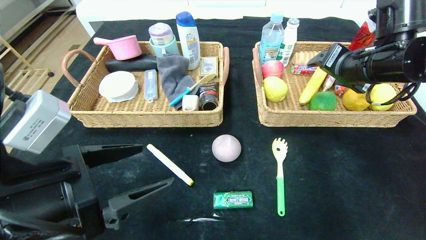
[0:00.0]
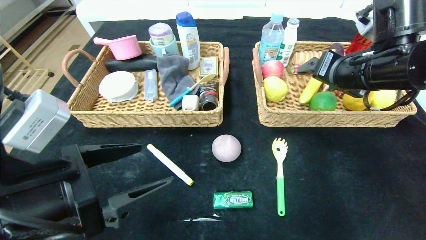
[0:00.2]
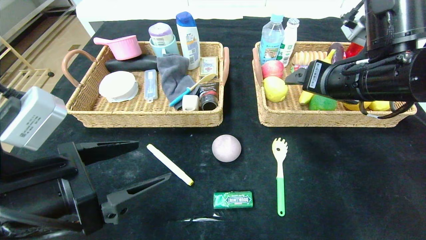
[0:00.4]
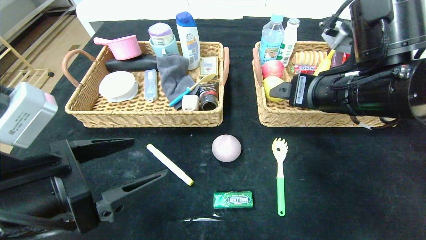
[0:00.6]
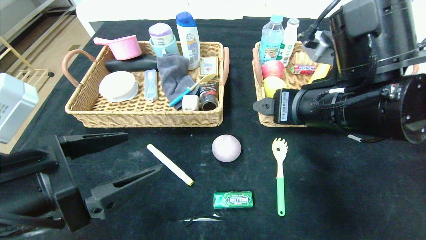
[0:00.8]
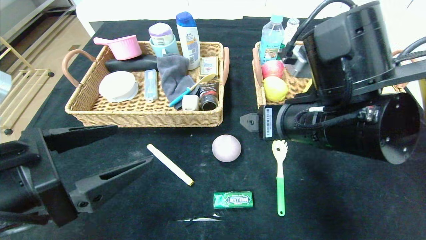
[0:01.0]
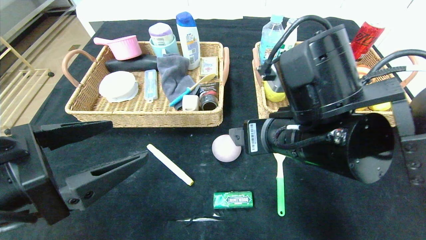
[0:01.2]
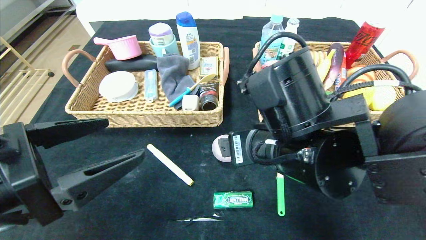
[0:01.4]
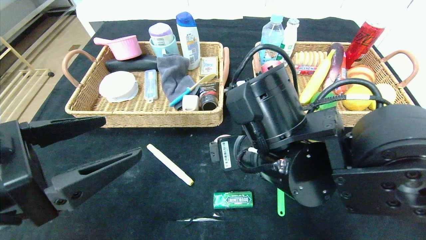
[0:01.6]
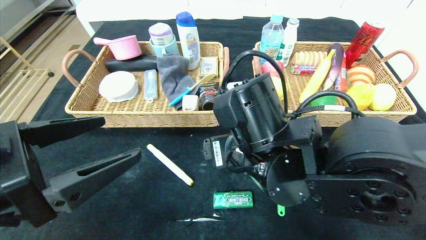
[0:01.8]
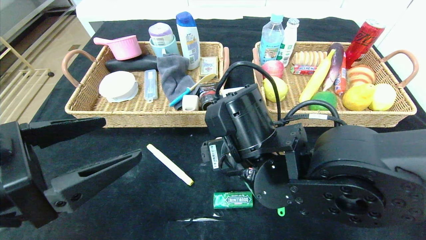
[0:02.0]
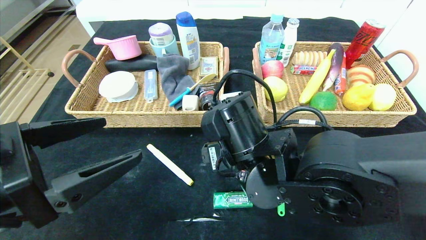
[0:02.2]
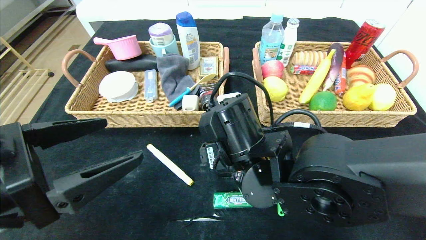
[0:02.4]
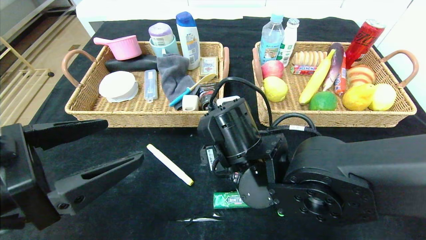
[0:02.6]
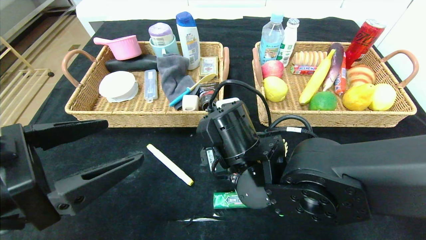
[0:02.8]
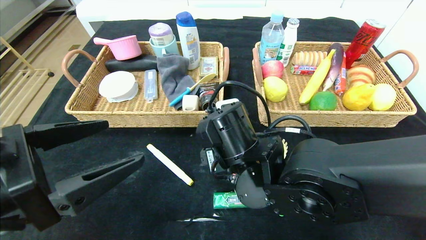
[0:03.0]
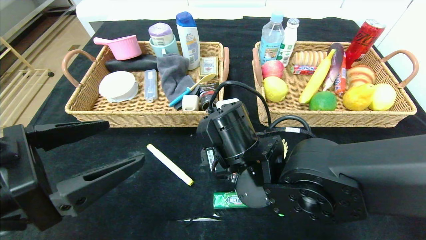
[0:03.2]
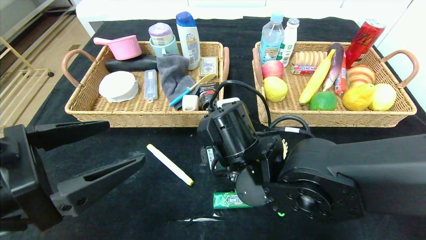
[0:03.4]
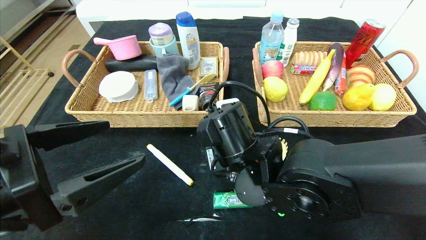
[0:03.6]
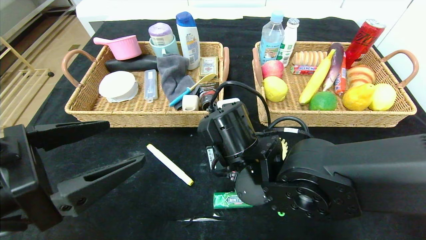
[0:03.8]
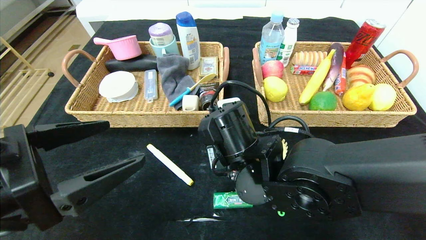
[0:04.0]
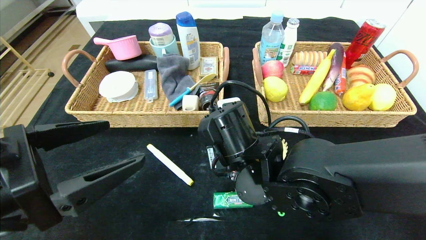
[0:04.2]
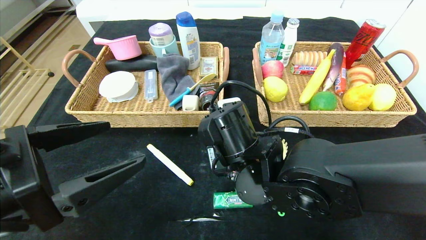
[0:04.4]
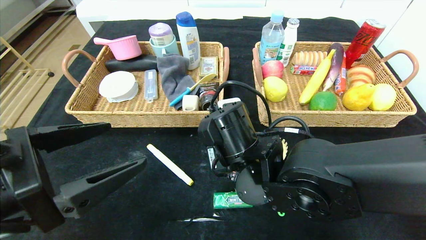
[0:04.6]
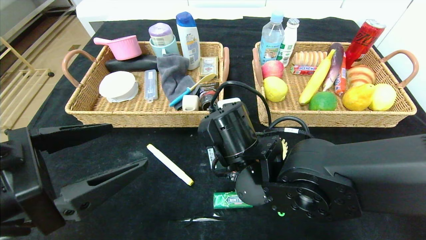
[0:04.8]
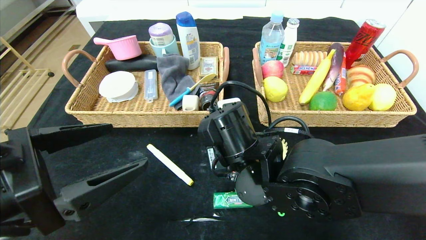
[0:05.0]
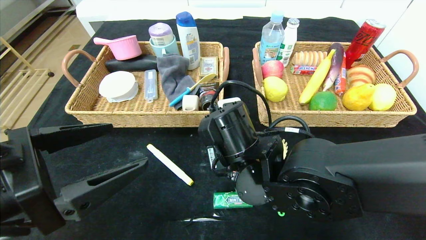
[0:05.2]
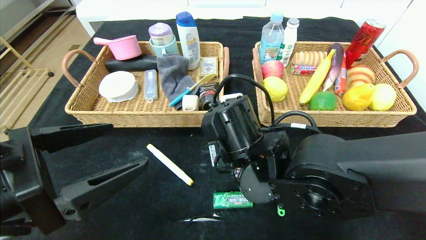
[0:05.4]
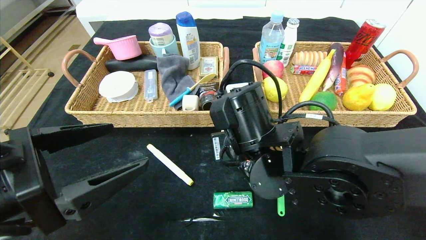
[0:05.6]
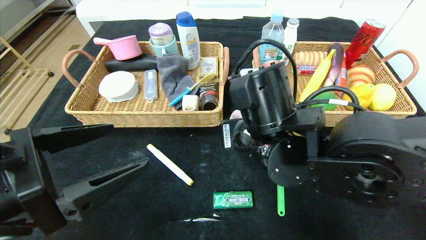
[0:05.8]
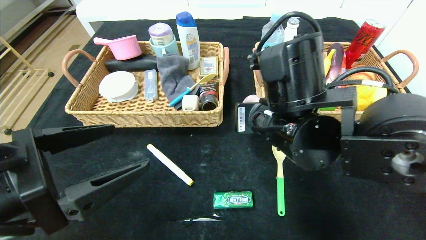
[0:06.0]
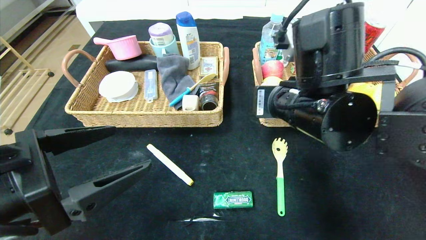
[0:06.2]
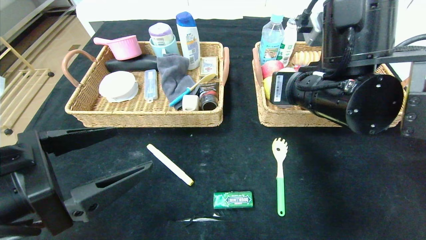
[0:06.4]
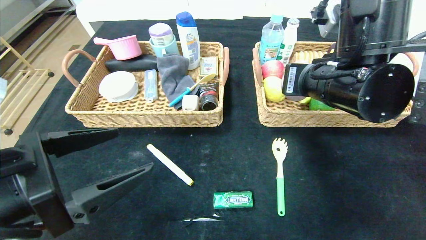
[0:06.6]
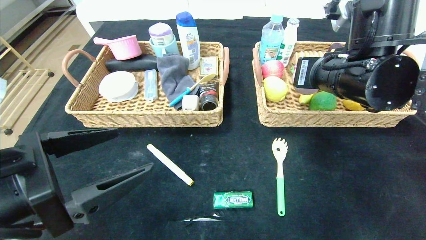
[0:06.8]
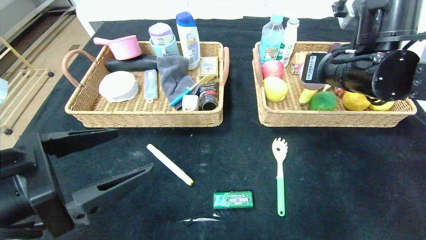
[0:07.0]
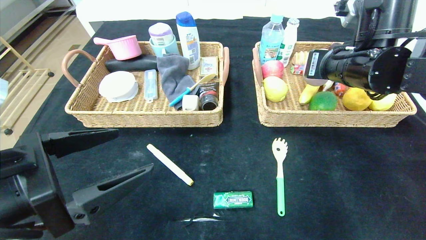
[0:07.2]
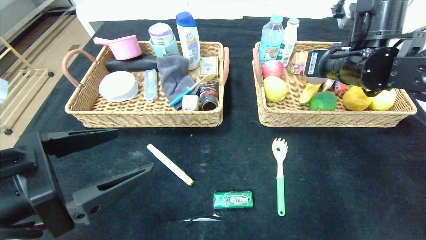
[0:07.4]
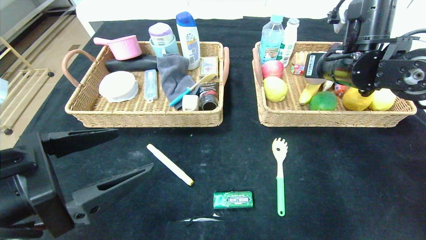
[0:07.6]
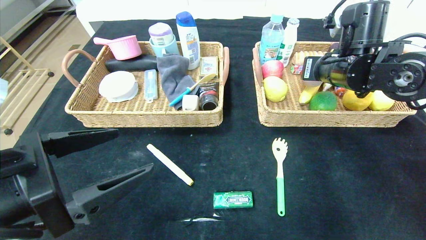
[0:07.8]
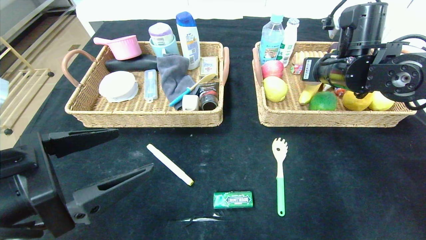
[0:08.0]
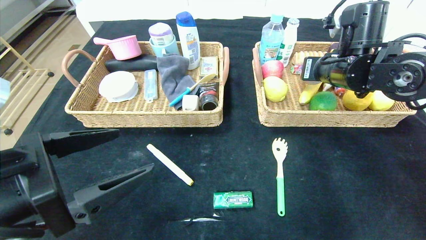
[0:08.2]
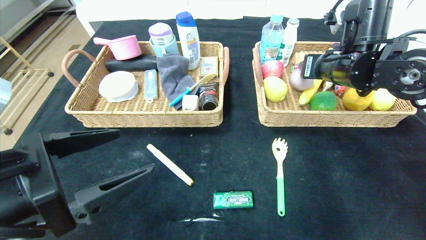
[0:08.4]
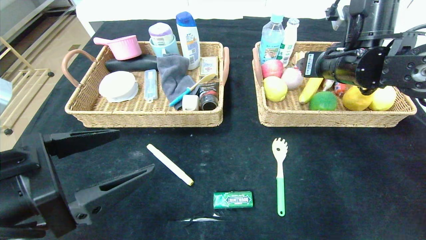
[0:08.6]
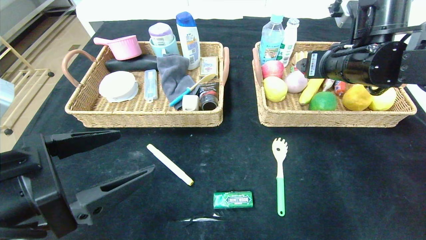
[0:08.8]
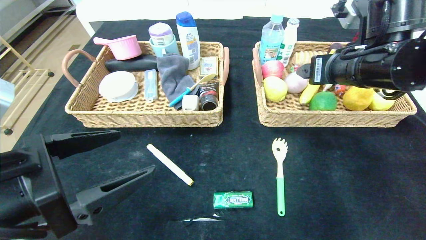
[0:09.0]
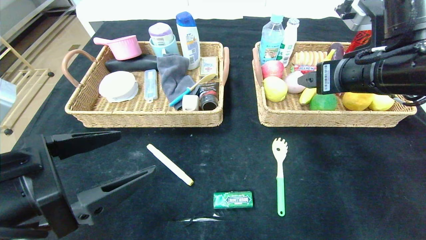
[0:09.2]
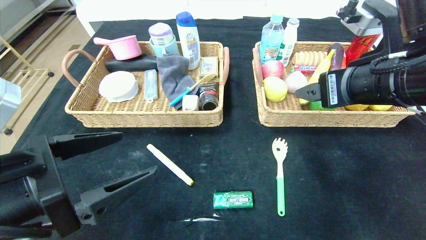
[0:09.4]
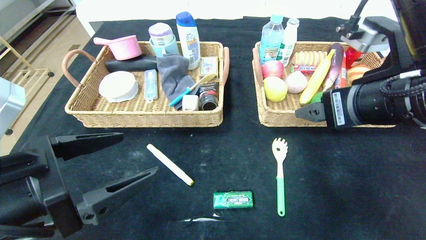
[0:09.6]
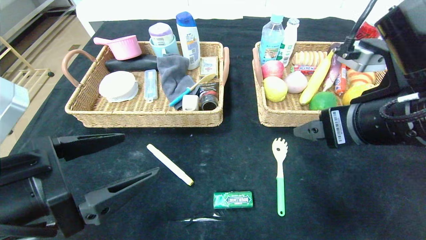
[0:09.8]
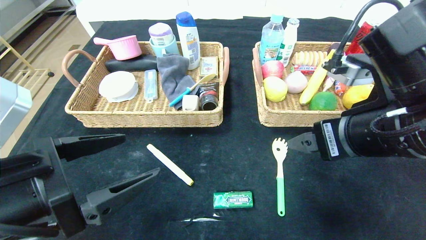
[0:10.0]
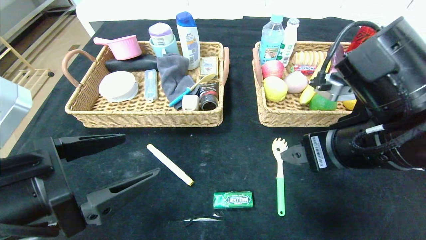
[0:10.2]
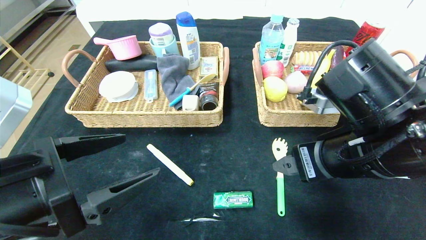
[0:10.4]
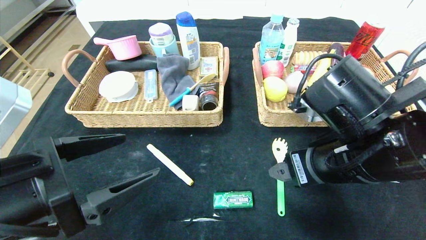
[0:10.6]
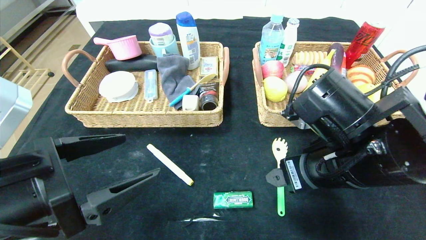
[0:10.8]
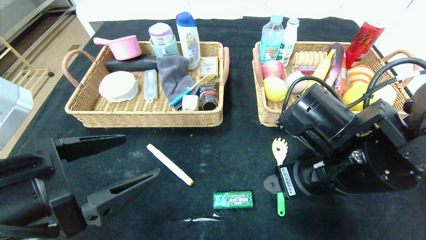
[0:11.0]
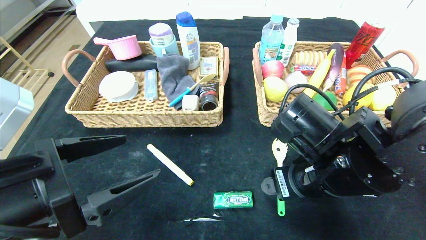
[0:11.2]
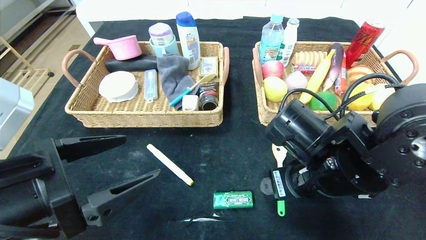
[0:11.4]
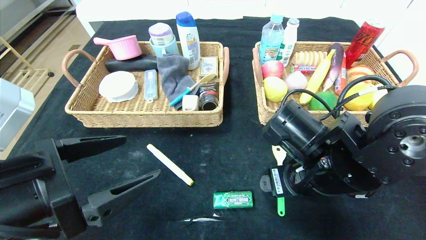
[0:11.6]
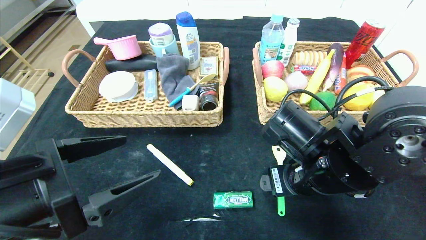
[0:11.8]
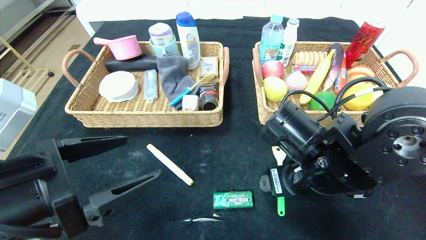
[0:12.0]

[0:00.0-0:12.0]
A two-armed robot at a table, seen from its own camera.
Step, 0:01.4 to 0:10.2: Pick up the peach and put it in the right basket.
0:00.0 to 0:01.6: The right gripper shifts about 25 cm to the left, backward and downward.
0:01.6 to 0:03.0: The right gripper changes place by approximately 5 cm.
0:03.0 to 0:04.4: The right gripper closes.
0:04.4 to 0:06.0: The right gripper heads upward and to the right, covering roughly 10 cm.
0:06.0 to 0:07.6: The right gripper heads to the right and forward, covering approximately 20 cm.
0:07.6 to 0:09.0: The right gripper heads backward, covering approximately 5 cm, and opens its fingers.
0:09.0 to 0:10.4: The right gripper moves backward and downward, some 10 cm.
0:10.4 to 0:12.0: The right gripper goes about 5 cm downward.

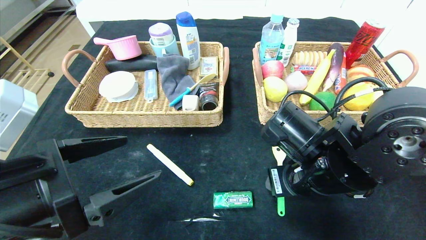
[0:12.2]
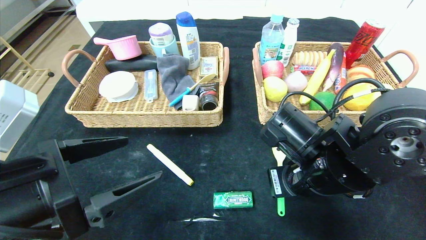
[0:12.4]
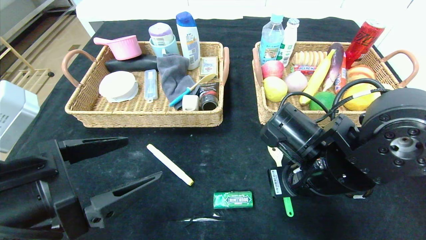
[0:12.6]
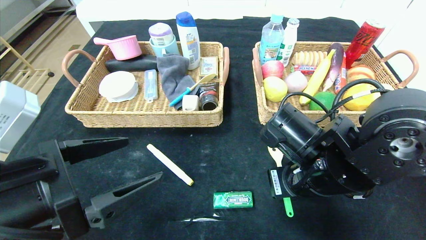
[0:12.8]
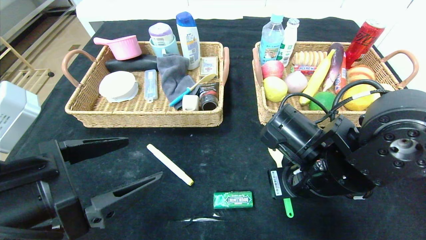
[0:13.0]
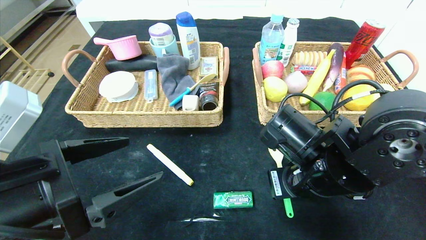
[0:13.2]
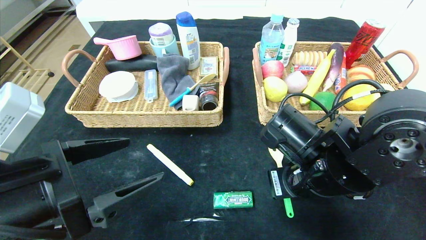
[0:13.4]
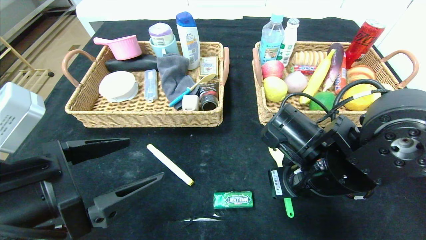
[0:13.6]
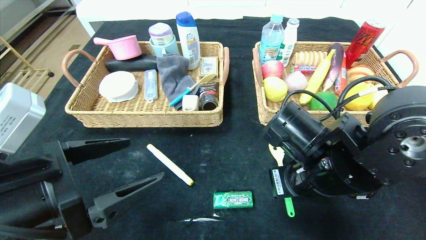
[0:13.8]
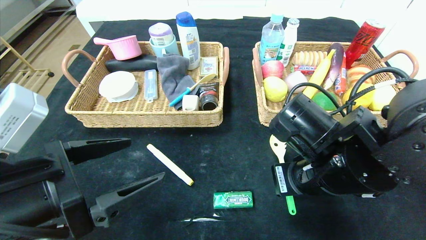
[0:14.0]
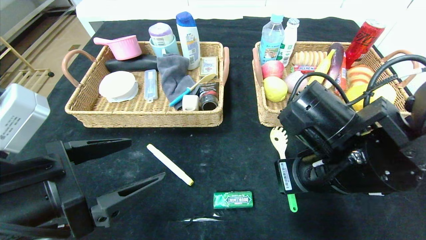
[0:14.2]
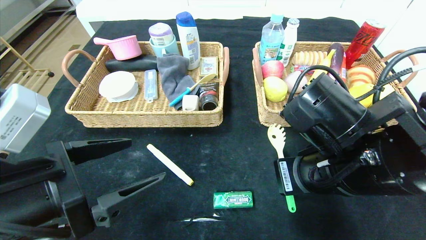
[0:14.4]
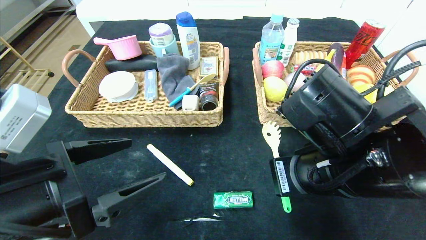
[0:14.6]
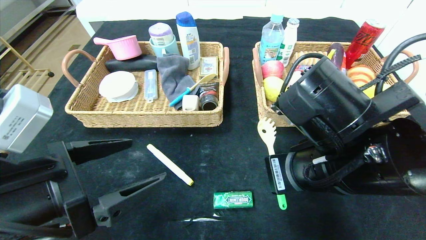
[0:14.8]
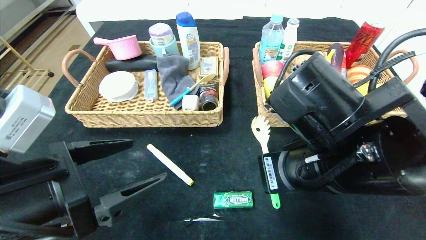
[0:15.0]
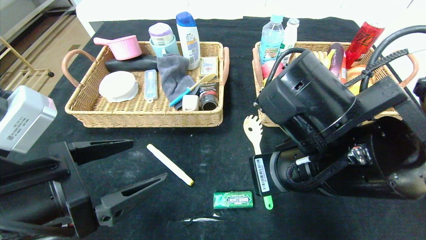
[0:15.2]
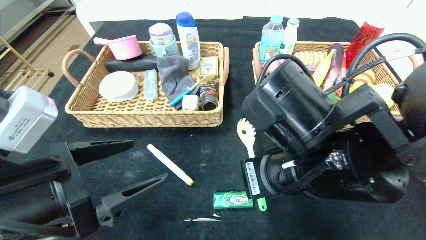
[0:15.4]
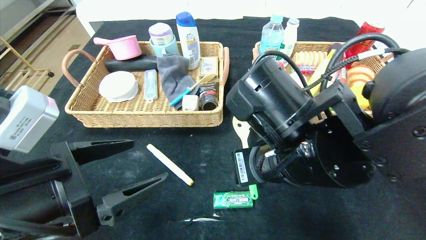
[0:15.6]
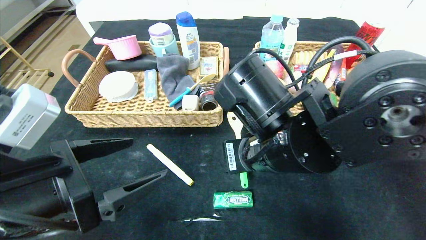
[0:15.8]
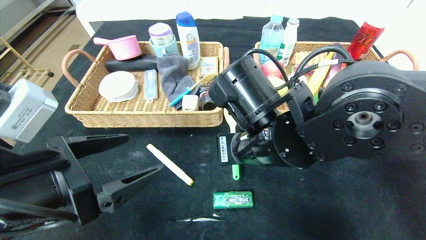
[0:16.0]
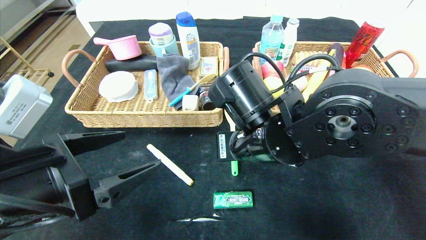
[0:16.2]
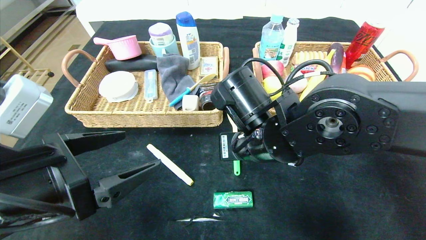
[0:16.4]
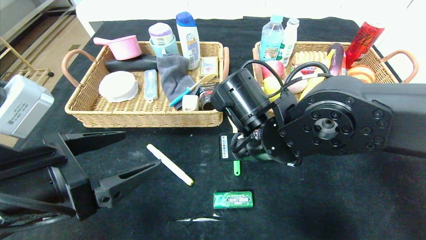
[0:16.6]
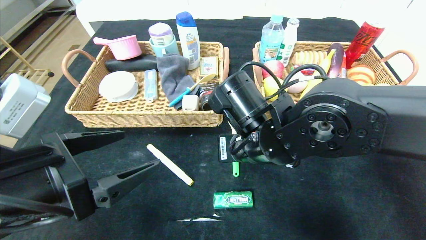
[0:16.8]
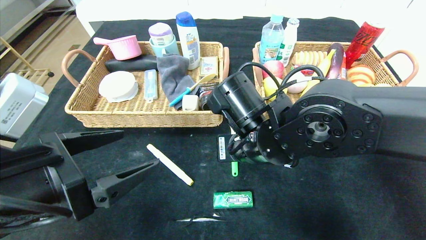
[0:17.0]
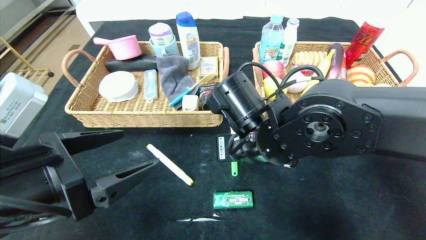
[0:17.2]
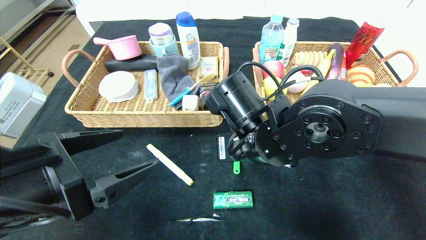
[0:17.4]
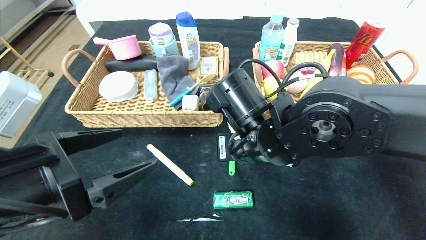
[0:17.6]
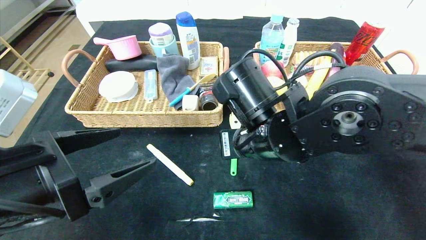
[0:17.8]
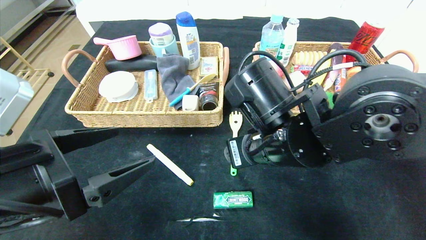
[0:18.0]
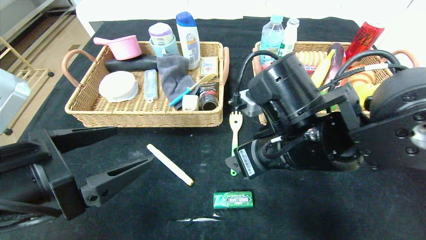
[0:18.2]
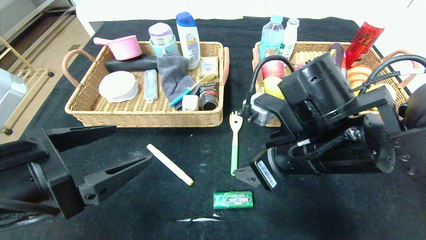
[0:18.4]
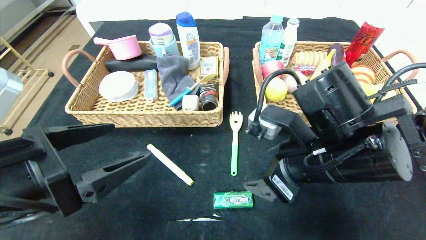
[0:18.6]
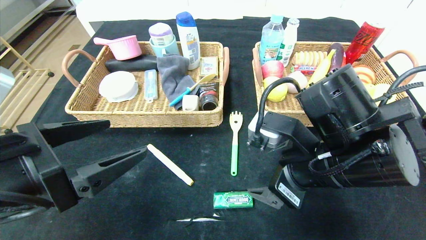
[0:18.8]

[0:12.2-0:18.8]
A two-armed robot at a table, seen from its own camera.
Step, 0:12.2 to 0:18.4: Place the back scratcher in the center of the table.
0:12.2 to 0:13.8: The right gripper closes up.
0:13.8 to 0:15.4: The right gripper moves approximately 5 cm.
0:15.4 to 0:17.2: The right gripper heads forward, covering about 5 cm.
0:17.2 to 0:18.8: The right gripper goes some 10 cm to the right and backward, and opens its fingers.
